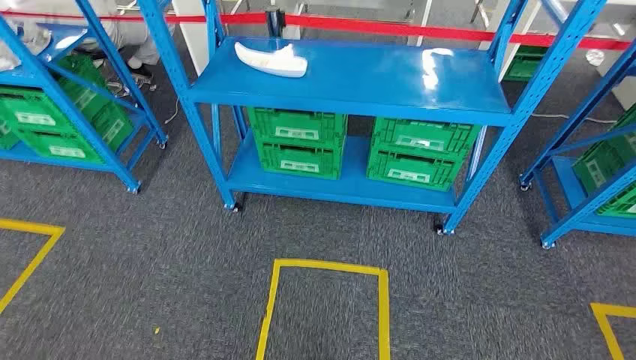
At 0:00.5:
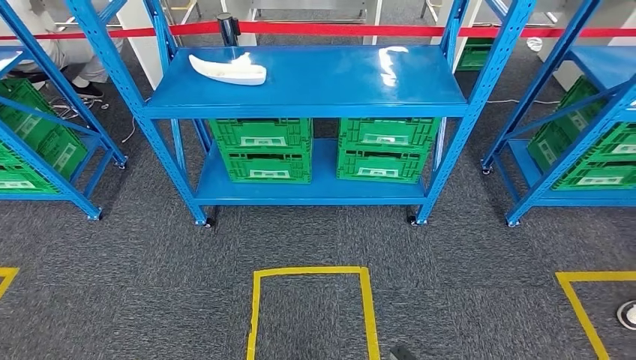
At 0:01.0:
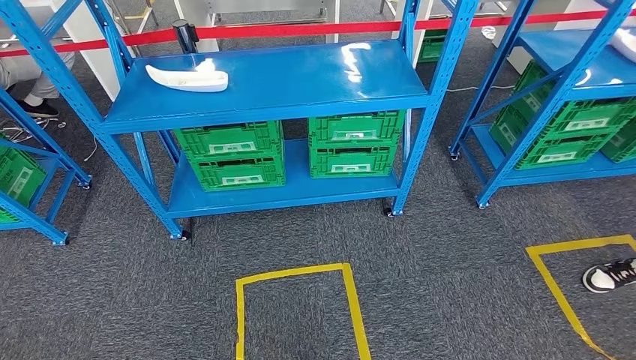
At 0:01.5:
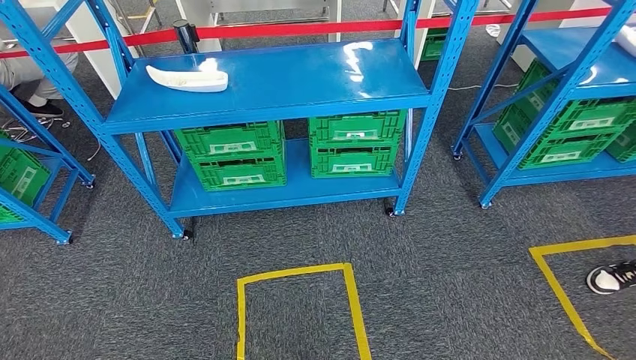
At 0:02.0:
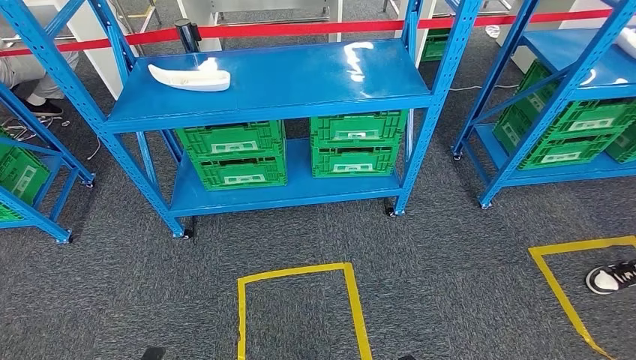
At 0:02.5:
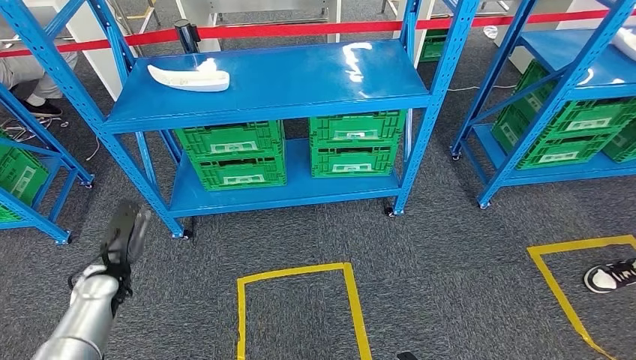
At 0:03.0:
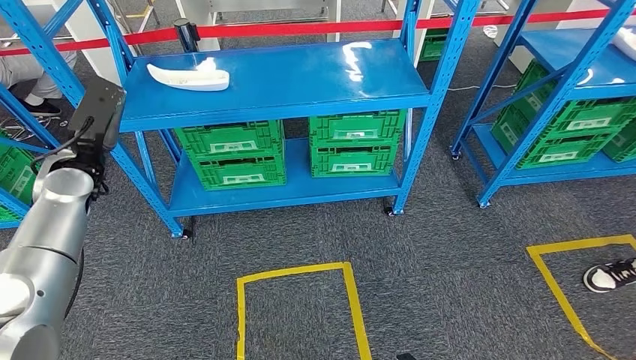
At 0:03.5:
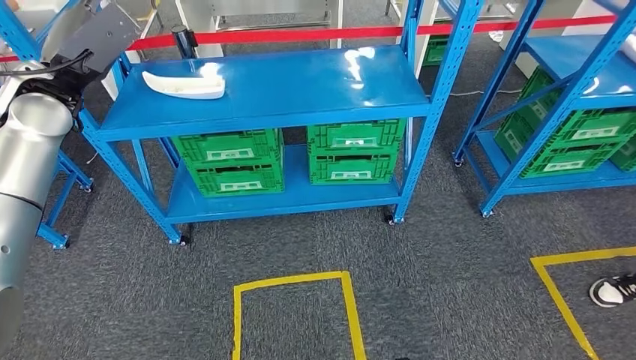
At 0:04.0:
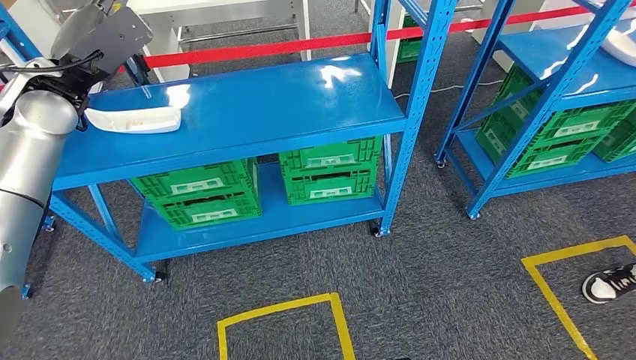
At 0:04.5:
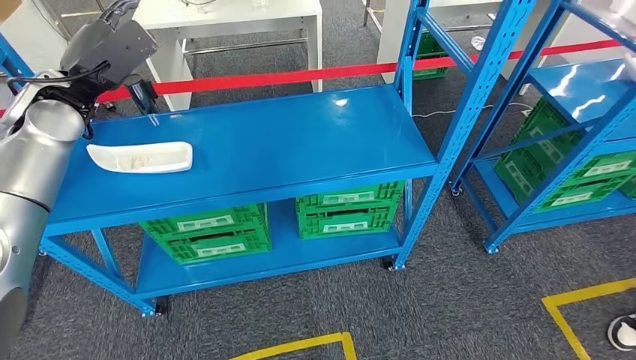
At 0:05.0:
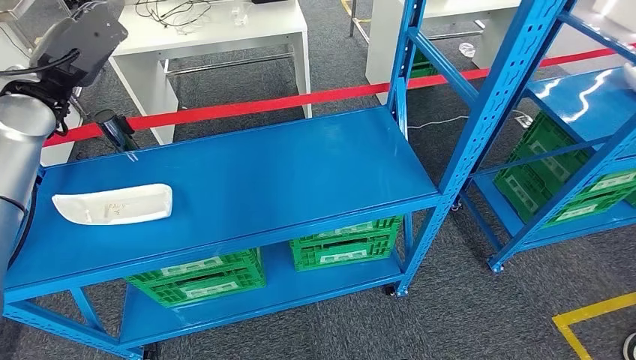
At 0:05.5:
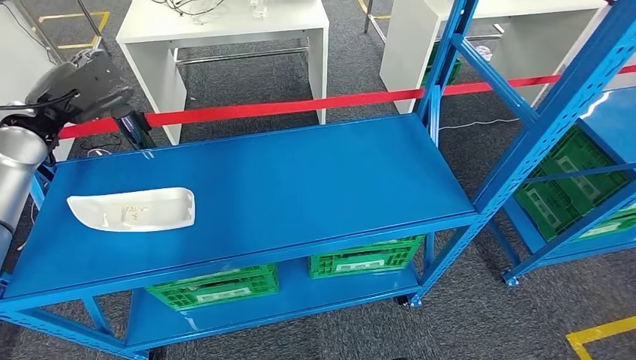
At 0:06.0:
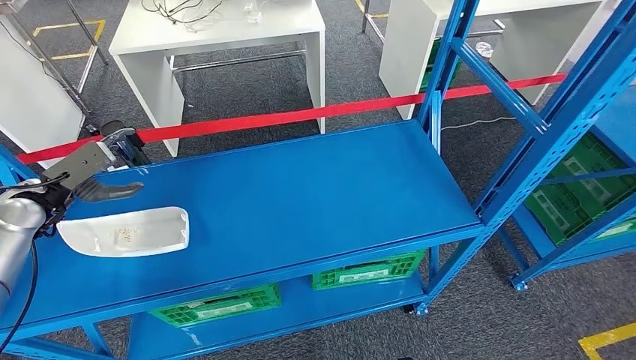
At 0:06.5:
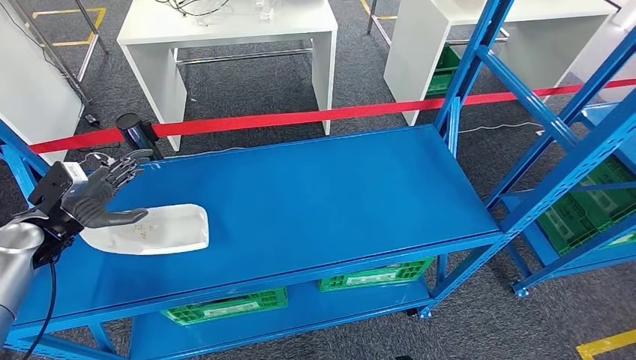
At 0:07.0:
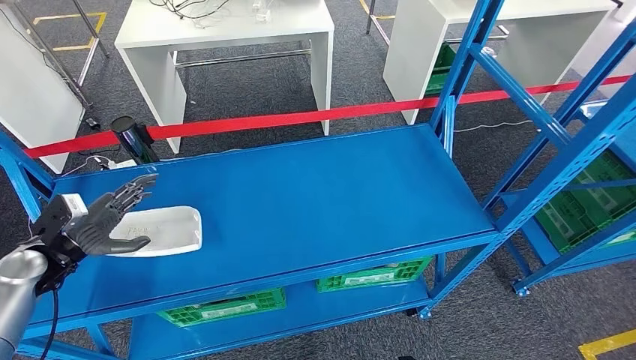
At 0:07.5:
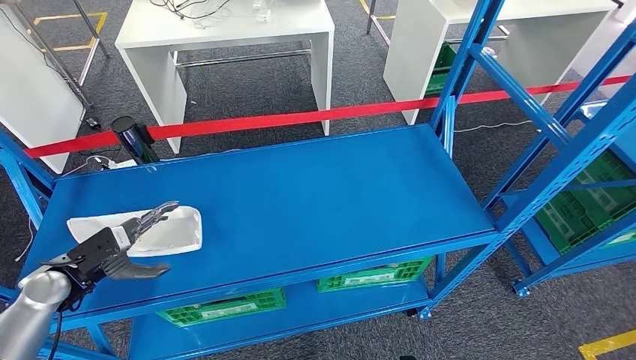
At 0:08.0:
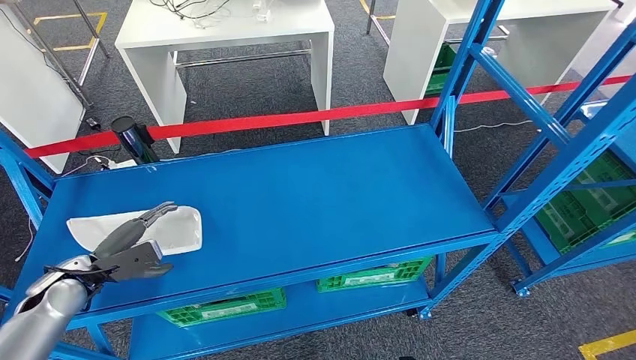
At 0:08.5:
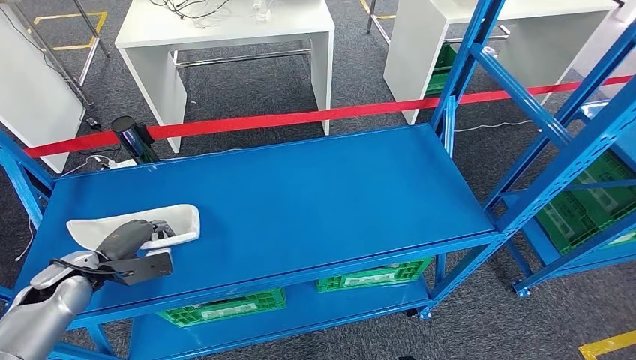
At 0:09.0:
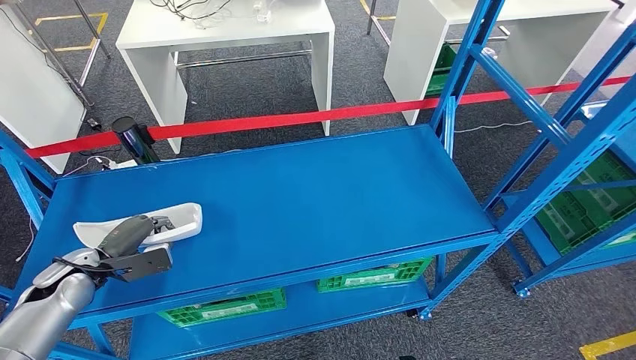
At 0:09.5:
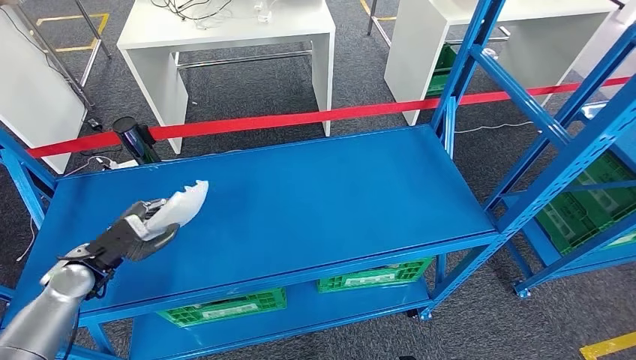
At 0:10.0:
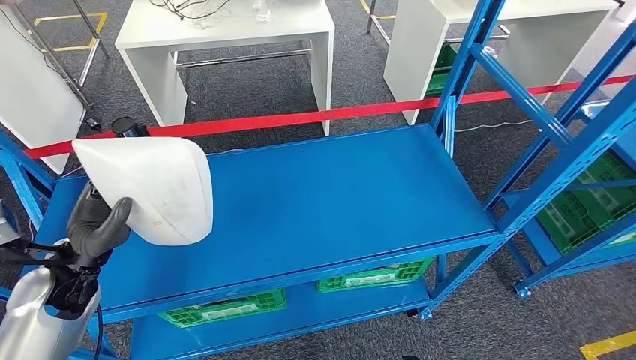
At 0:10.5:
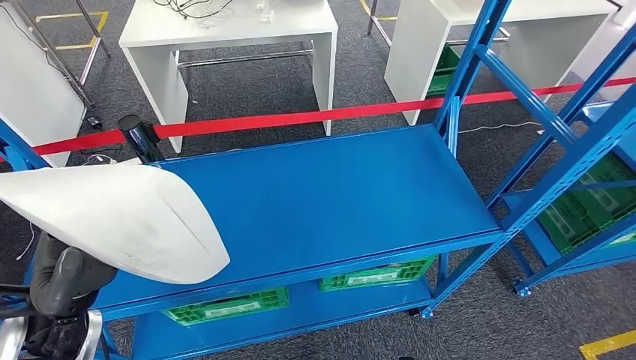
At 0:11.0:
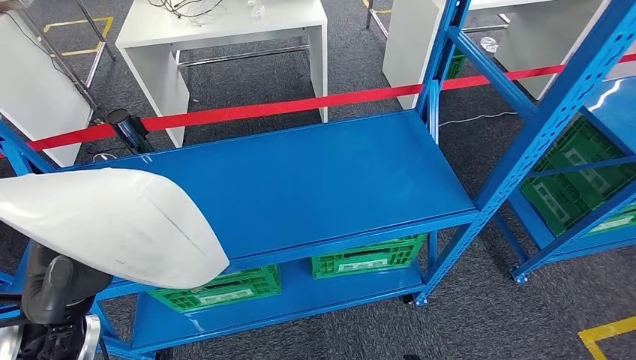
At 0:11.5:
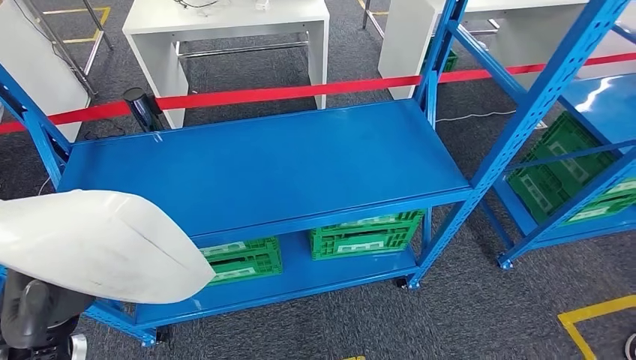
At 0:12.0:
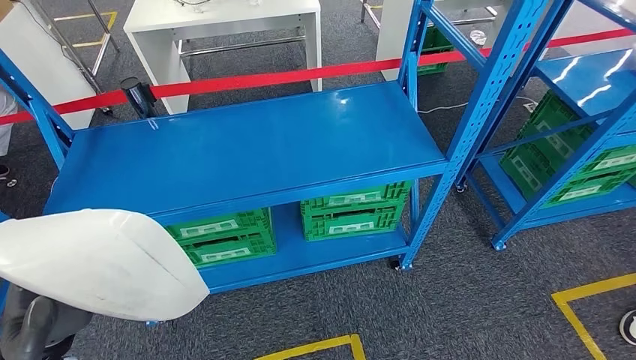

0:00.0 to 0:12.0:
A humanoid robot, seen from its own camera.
Step, 0:00.0 to 0:10.5: Pick up the small component from the shelf.
0:08.0 to 0:10.0: The left hand is displaced upward and to the right by about 10 cm.

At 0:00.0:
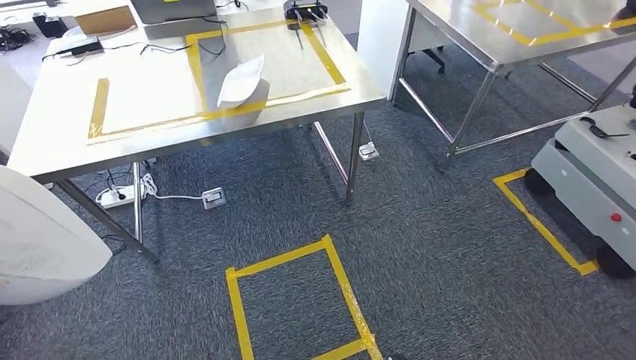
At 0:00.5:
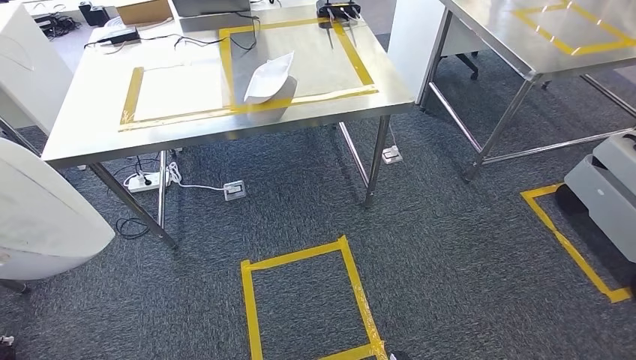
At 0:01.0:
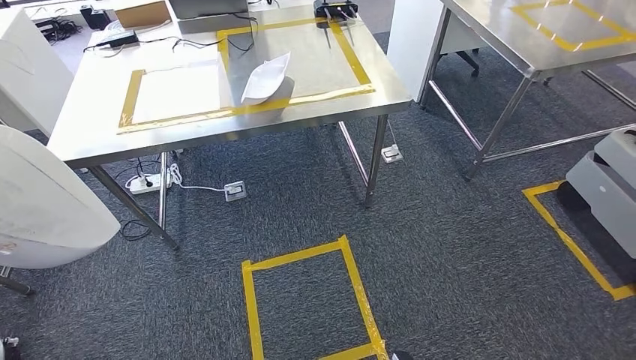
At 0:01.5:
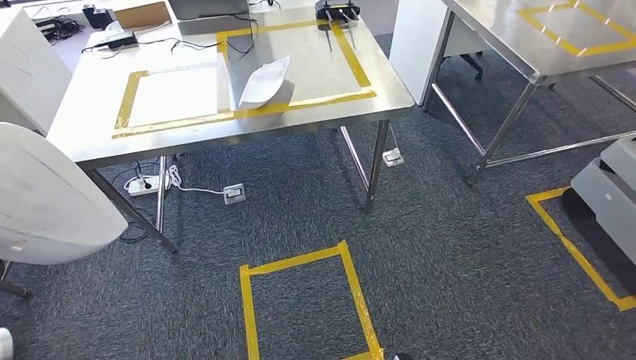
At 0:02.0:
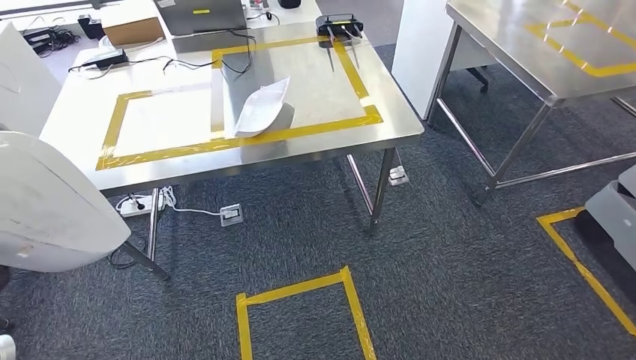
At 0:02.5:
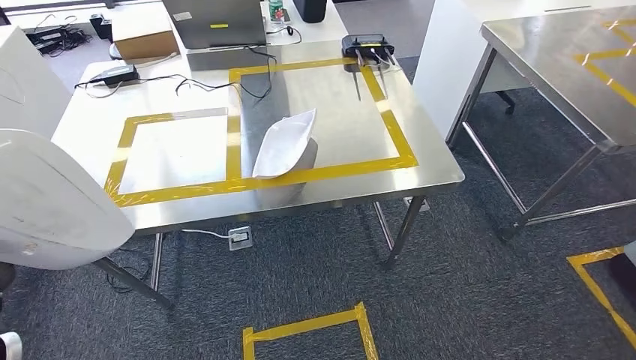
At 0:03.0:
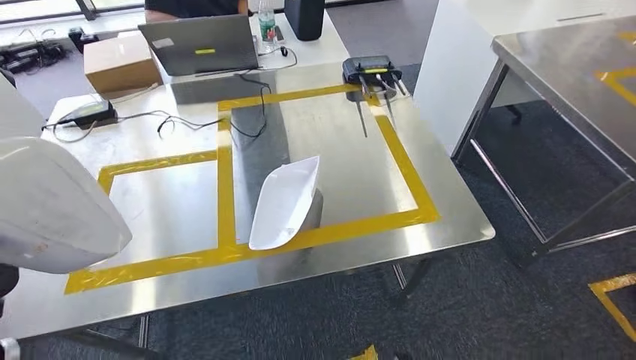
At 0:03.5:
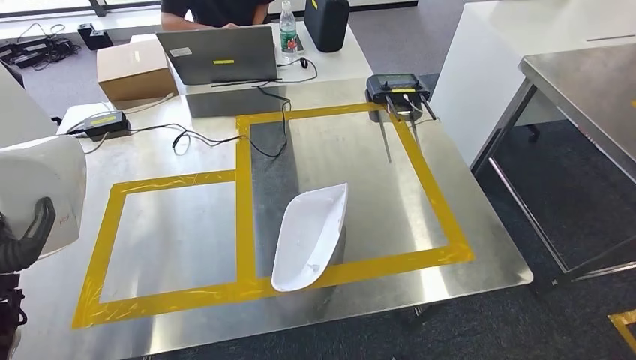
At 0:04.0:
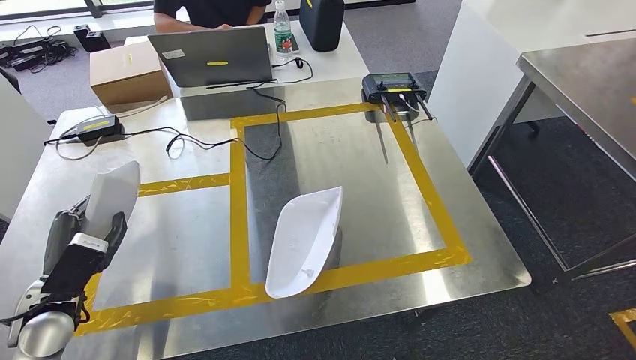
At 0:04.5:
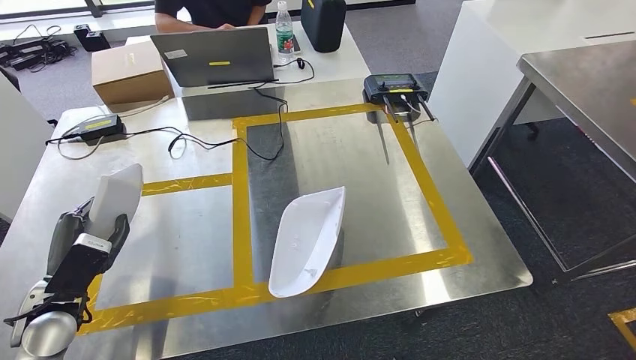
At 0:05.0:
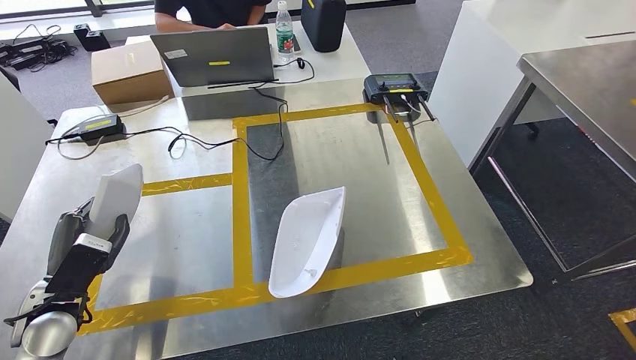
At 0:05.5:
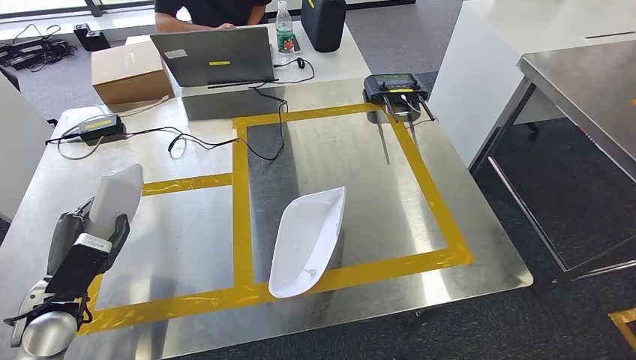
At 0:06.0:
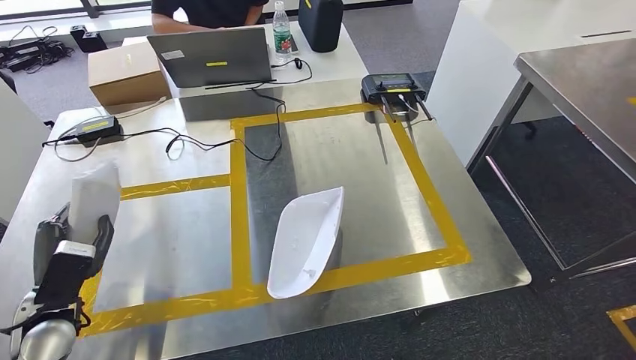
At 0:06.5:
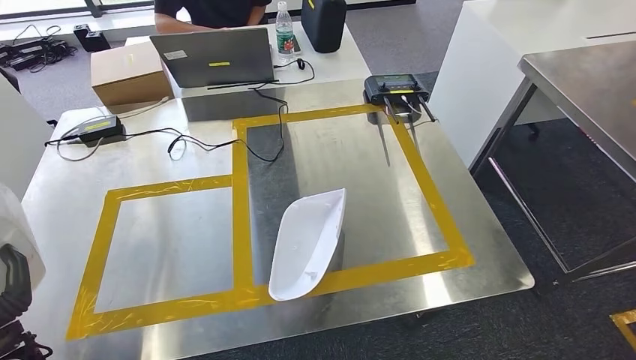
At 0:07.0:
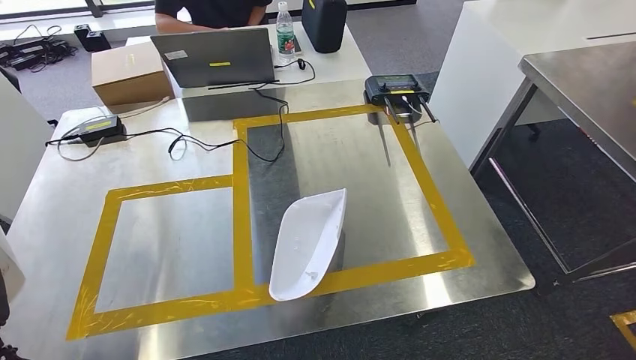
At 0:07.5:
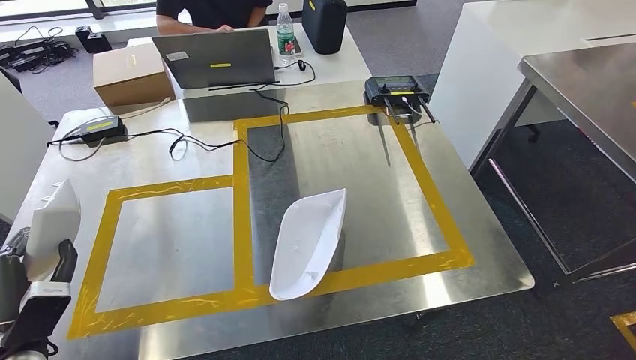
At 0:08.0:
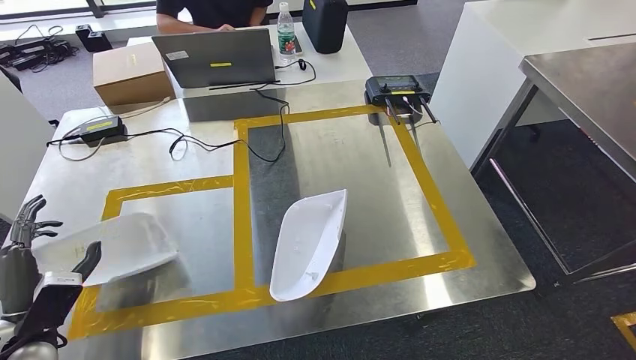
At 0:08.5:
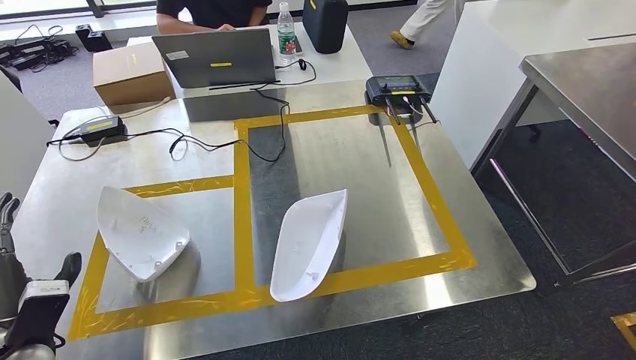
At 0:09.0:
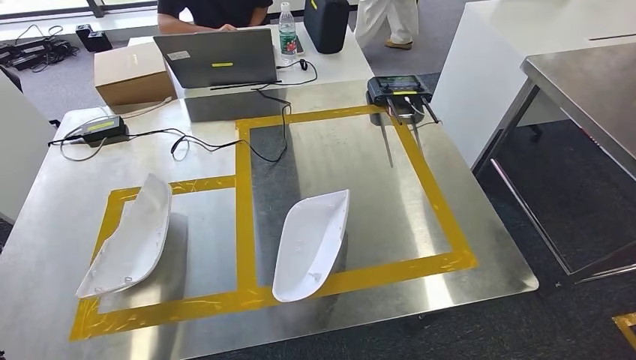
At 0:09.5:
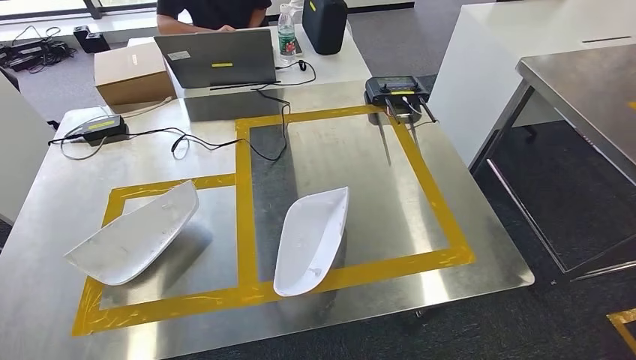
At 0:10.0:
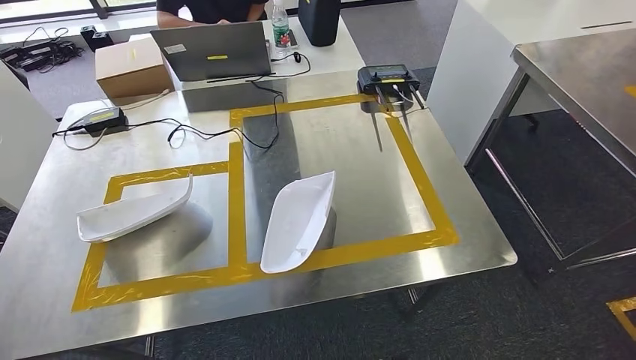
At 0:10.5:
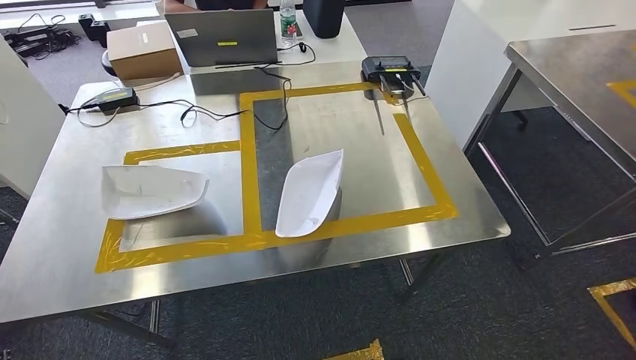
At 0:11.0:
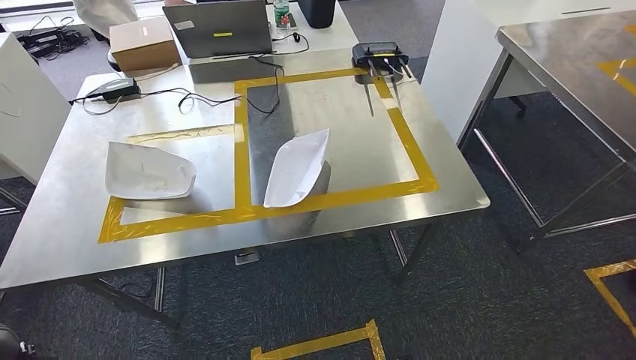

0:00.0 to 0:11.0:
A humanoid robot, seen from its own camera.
Step, 0:01.0 to 0:08.5: Insert the small component into the corresponding slot on the workbench.
0:03.5 to 0:05.5: The left hand heads to the right and downward, covering approximately 10 cm.
0:05.5 to 0:07.5: The left hand moves to the left and backward, approximately 10 cm.
0:07.5 to 0:09.0: The left hand shifts roughly 10 cm upward.
